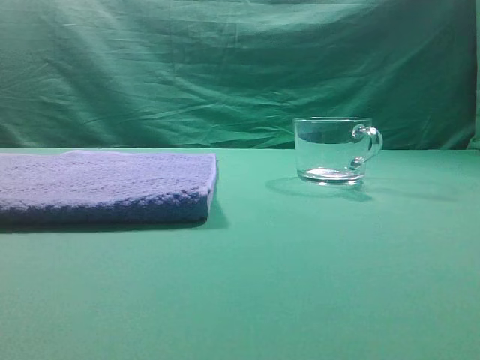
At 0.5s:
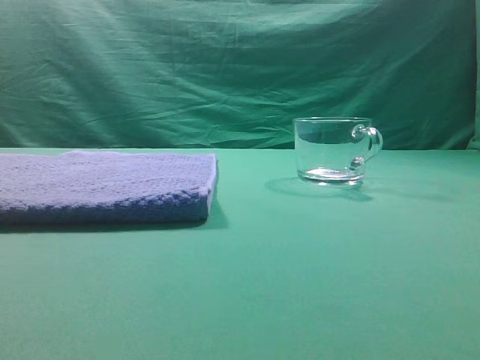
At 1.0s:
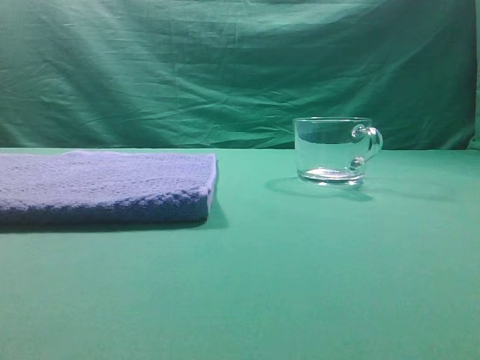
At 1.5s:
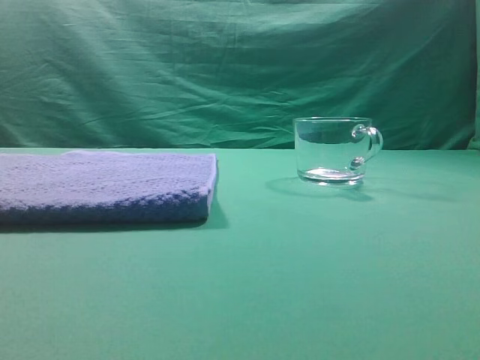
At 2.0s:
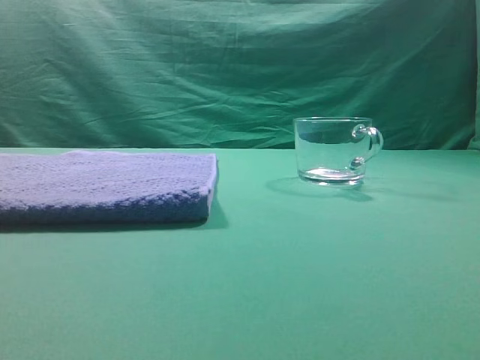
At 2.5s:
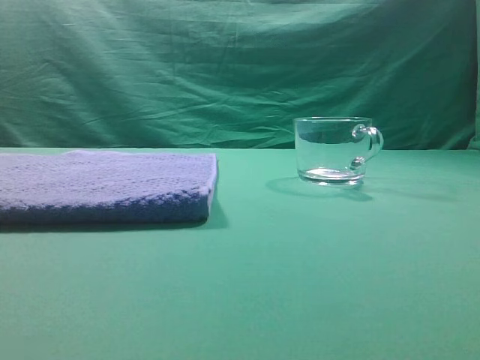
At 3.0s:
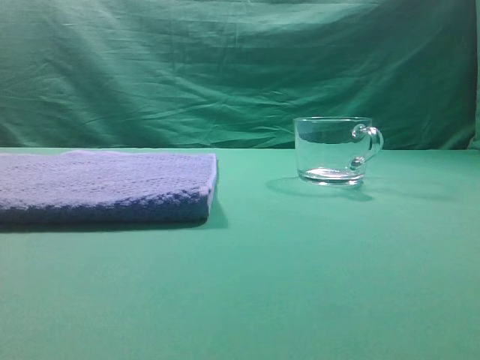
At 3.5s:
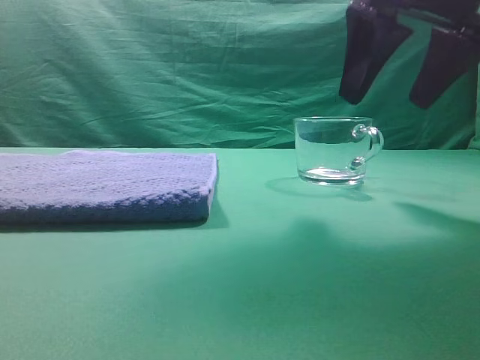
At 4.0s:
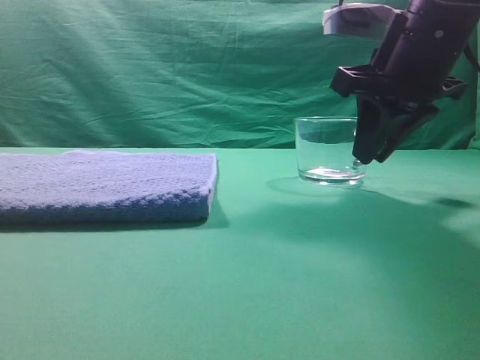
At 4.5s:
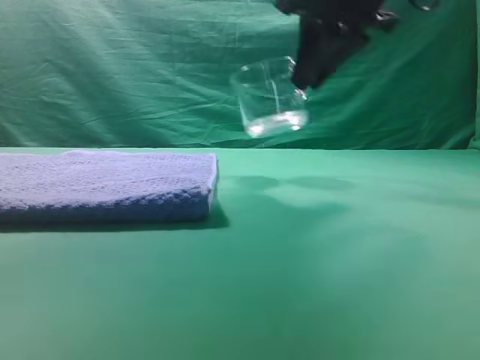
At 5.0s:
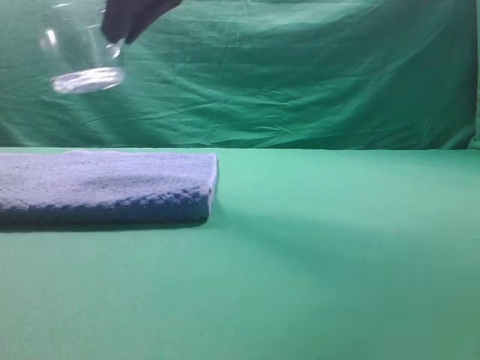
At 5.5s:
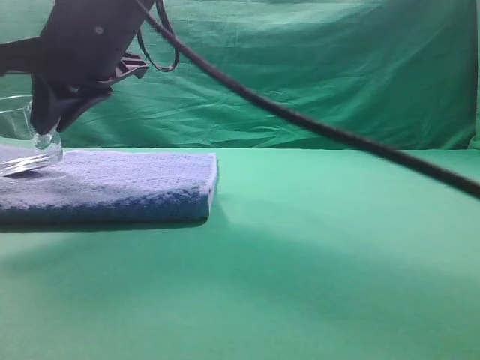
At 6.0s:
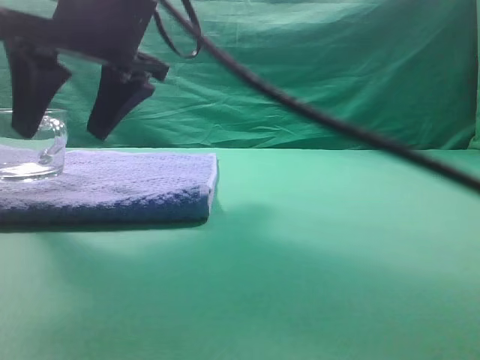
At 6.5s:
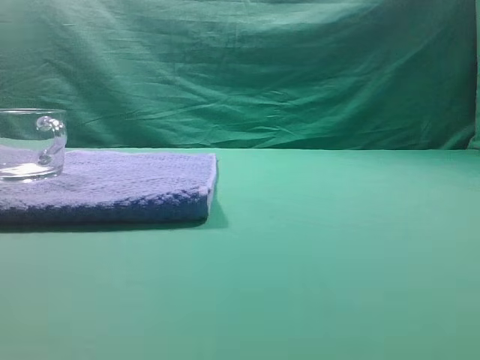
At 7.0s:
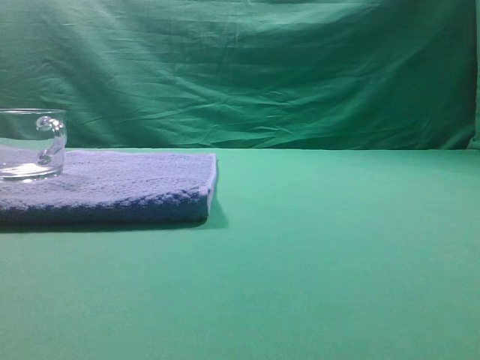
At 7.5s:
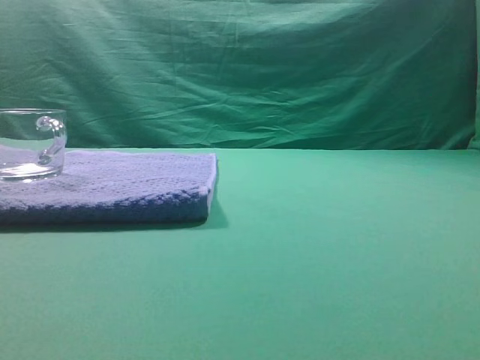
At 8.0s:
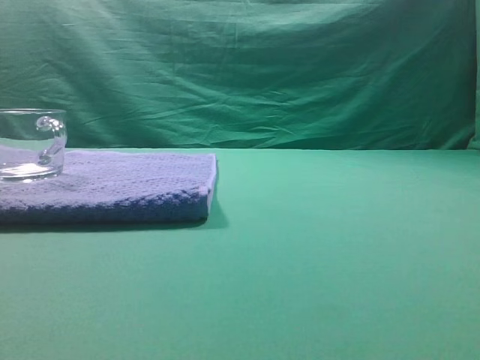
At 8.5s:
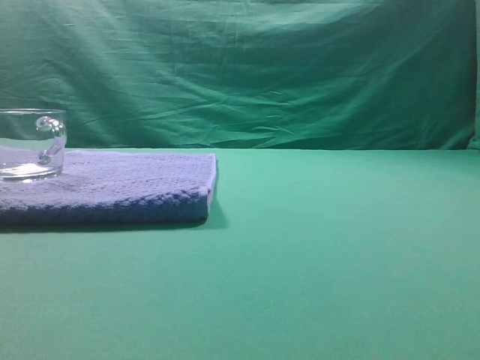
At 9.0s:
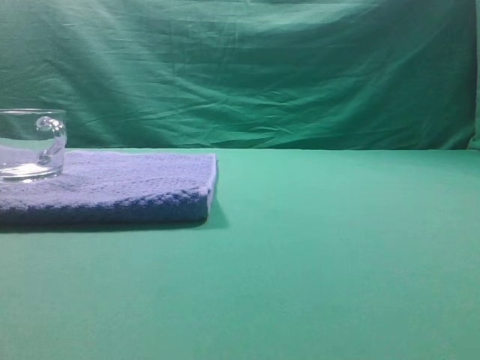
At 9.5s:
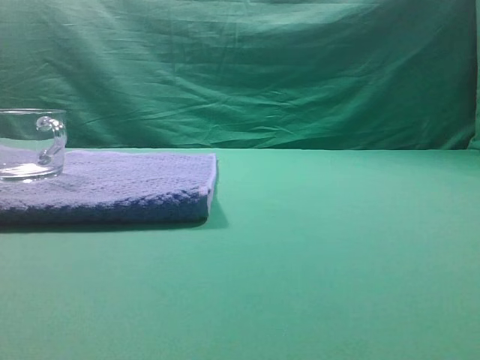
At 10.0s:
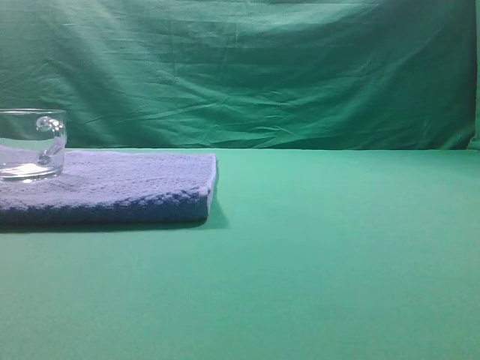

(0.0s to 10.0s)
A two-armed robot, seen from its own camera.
Task of the whole recording: grasp the transparent glass cup and place it within the blue towel.
Step, 0.0s - 4.0s: Grasp the transparent glass cup.
Step, 4.5s - 6.0s: Place the glass cup on the blue zone.
